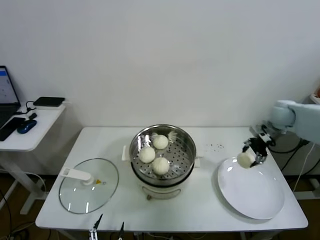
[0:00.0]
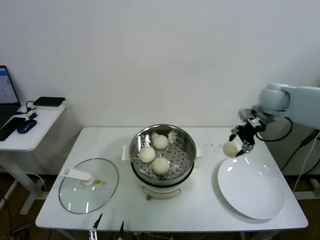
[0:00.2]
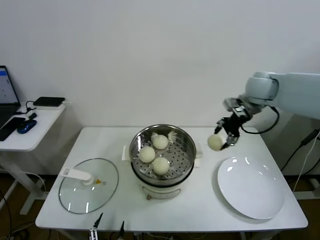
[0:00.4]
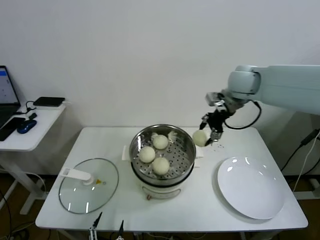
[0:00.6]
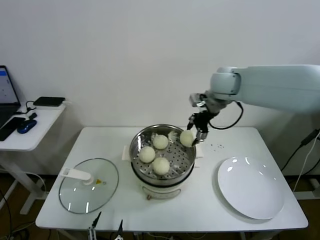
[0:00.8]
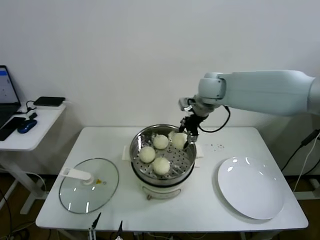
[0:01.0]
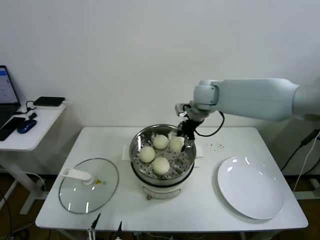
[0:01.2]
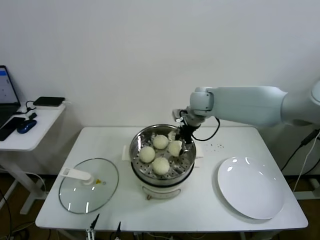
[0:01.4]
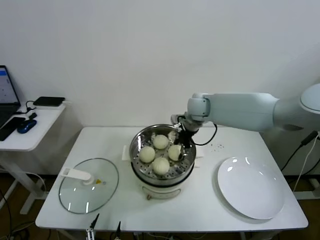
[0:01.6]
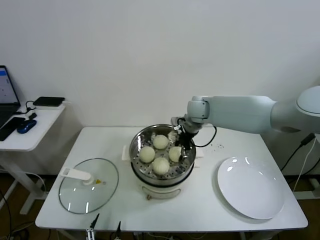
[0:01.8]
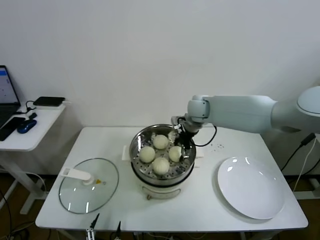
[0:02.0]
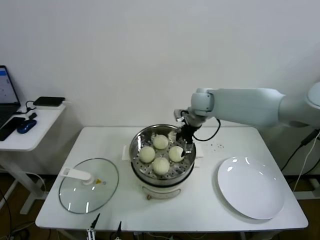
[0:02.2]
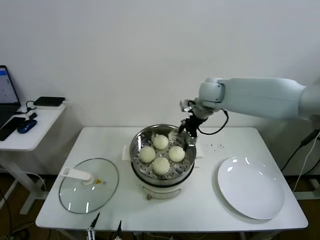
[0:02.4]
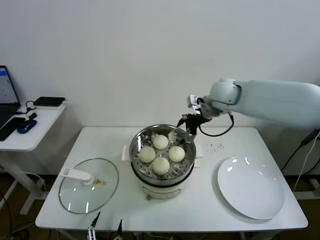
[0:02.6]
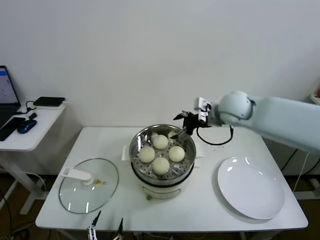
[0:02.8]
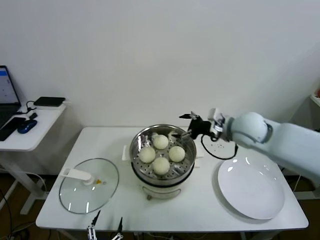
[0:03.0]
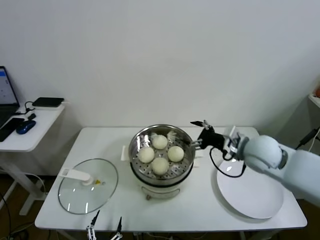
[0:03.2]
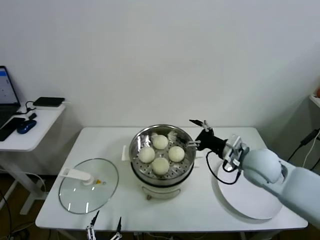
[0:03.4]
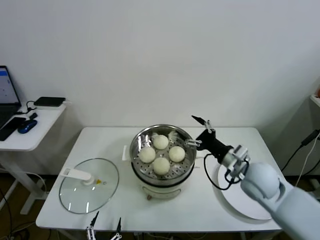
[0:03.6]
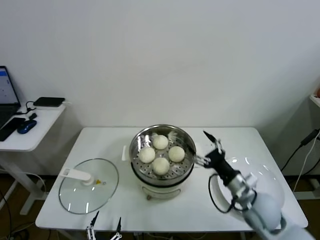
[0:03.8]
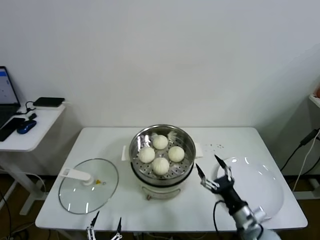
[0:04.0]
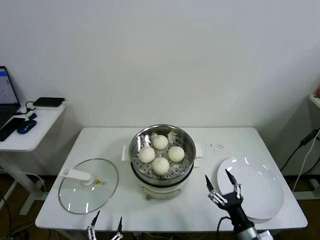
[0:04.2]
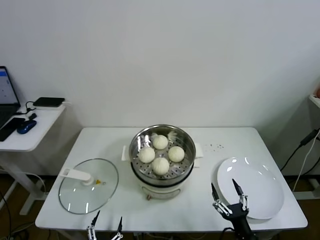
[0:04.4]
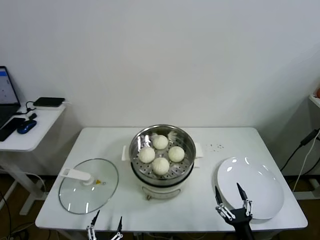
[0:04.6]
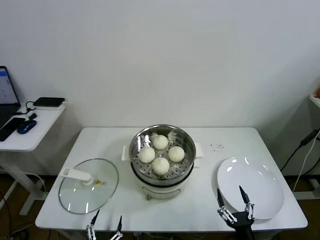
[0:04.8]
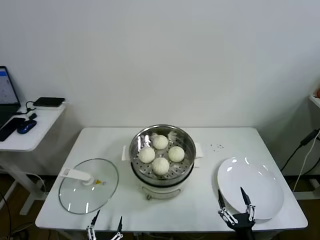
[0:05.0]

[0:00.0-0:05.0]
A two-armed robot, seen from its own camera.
Task of the whole recording: take steamed baozi put them in steamer.
Step, 0:00.0 to 0:02.0: Place the baozi on the steamer with right gripper.
0:00.0 to 0:01.6: The right gripper heads to the left, covering some 30 cm.
0:01.6 to 0:03.4: The right gripper goes roughly 25 cm backward and to the right, and opens up.
0:03.4 to 0:05.0: The right gripper goes roughly 35 cm backward and downward.
